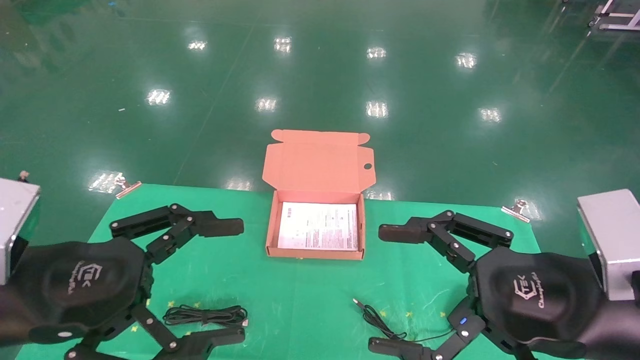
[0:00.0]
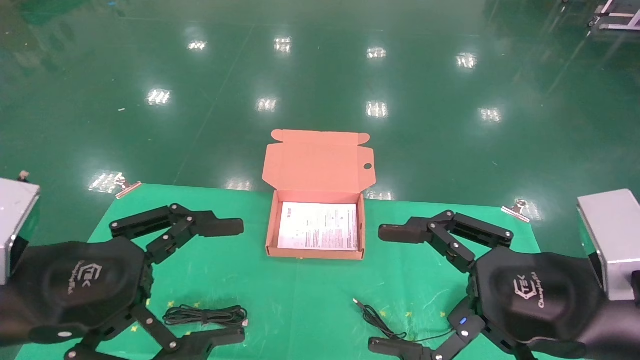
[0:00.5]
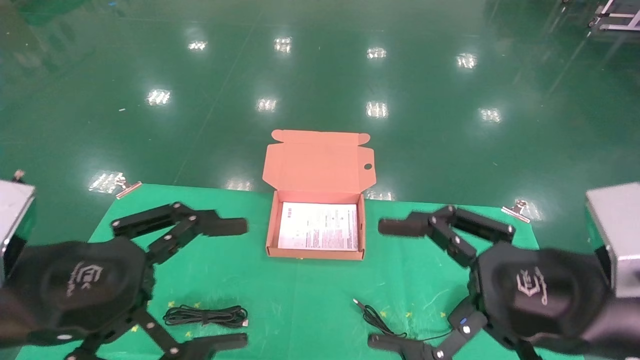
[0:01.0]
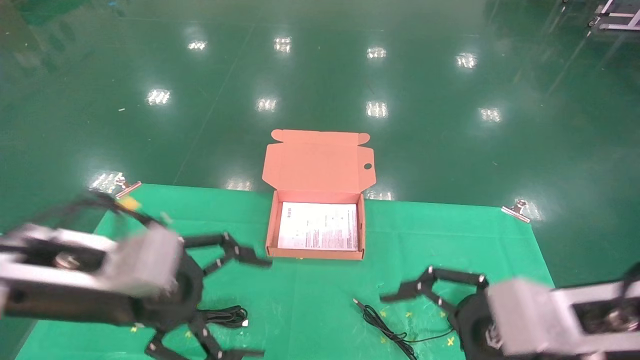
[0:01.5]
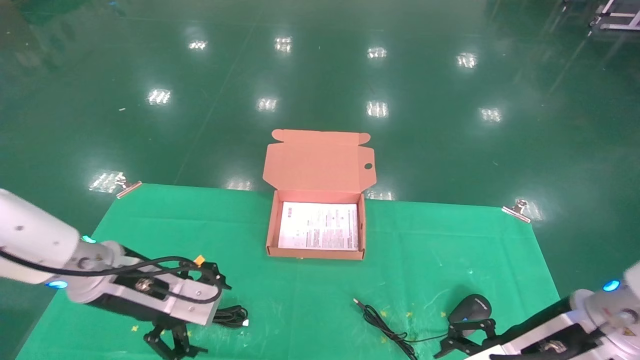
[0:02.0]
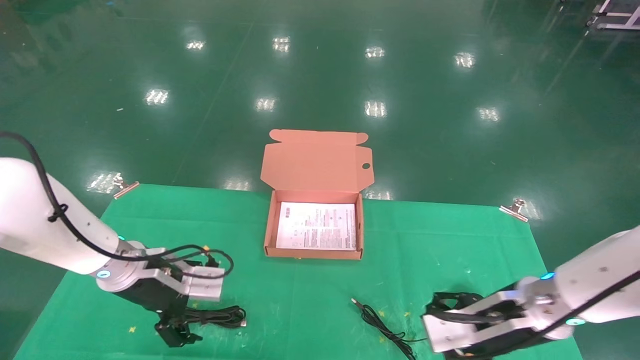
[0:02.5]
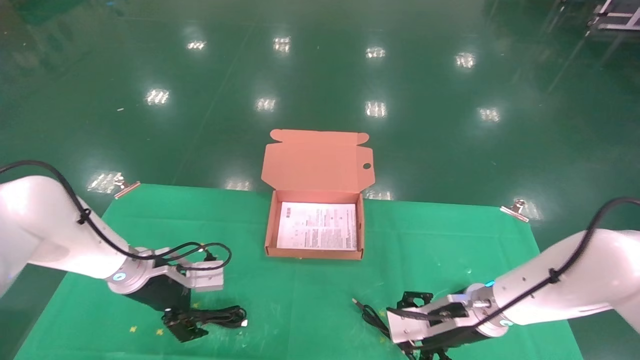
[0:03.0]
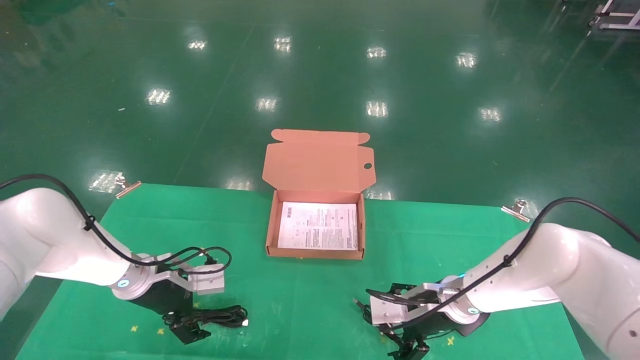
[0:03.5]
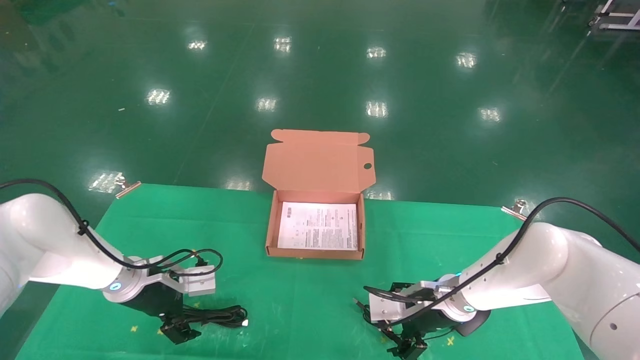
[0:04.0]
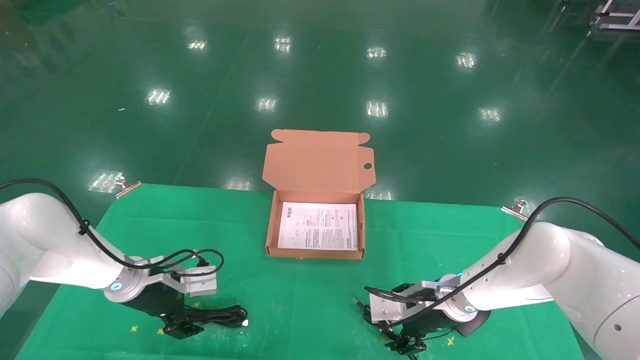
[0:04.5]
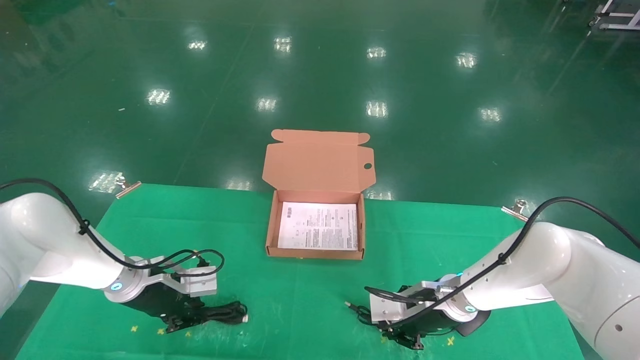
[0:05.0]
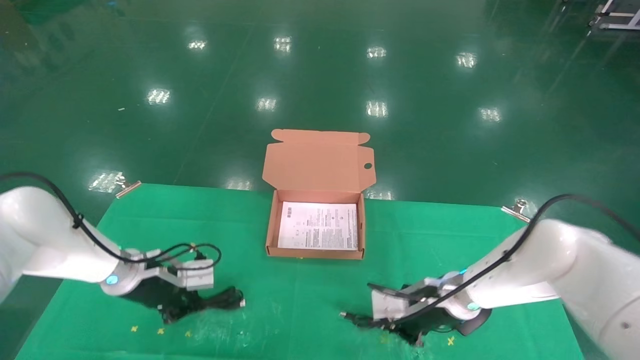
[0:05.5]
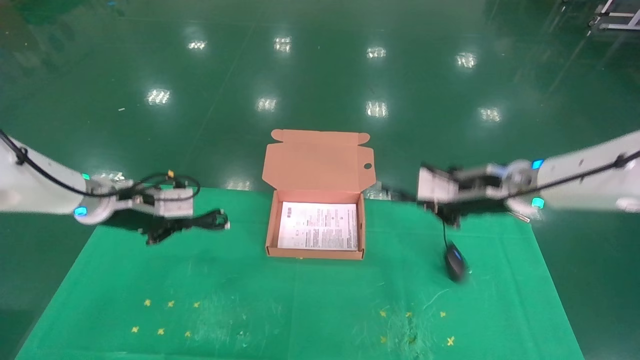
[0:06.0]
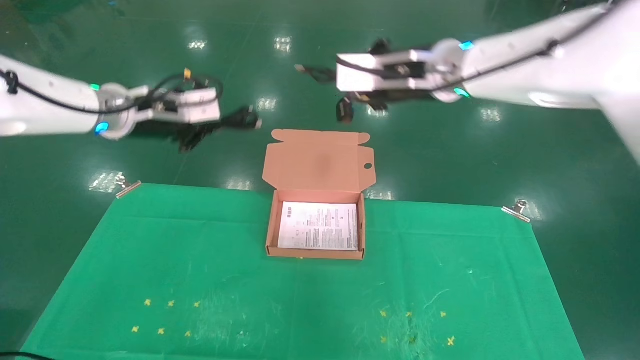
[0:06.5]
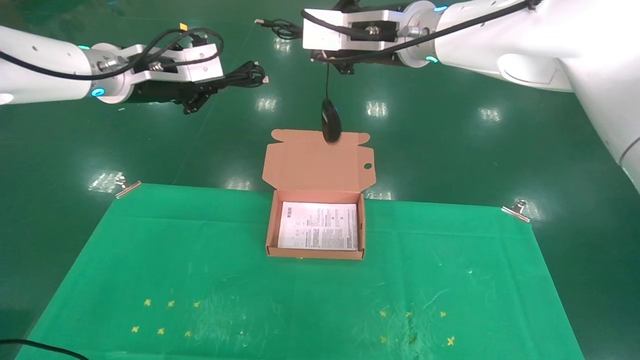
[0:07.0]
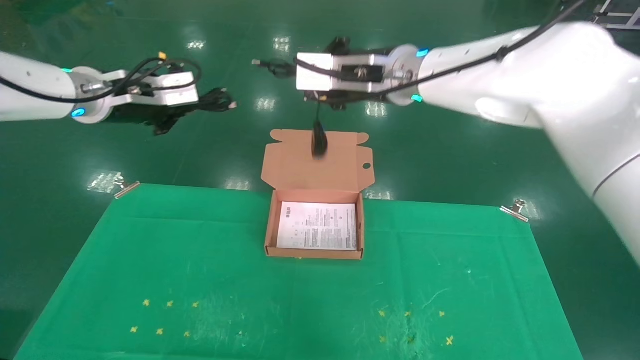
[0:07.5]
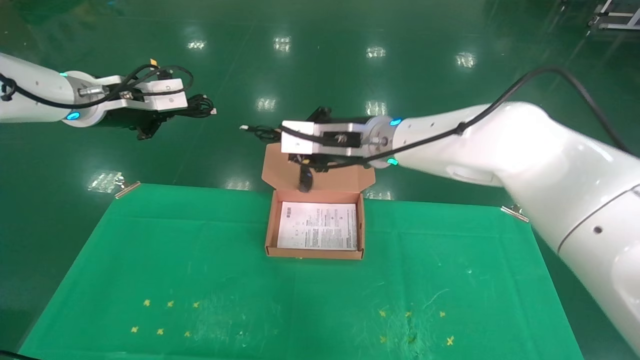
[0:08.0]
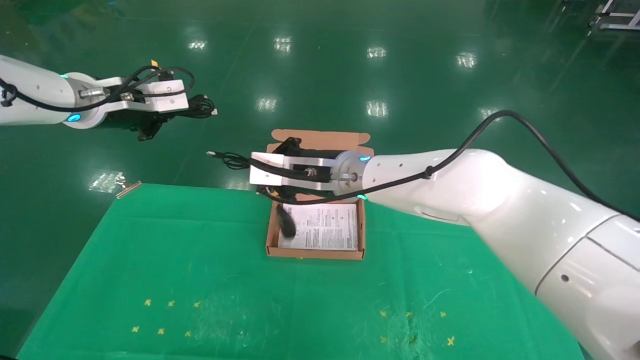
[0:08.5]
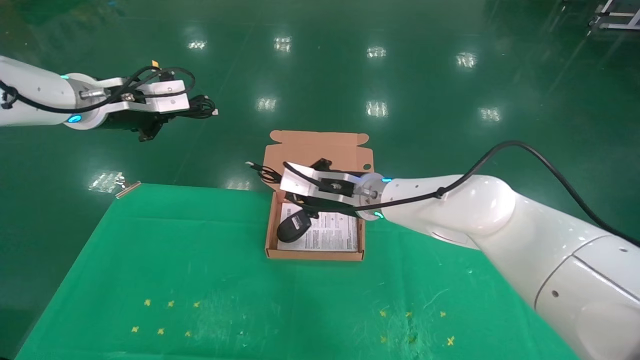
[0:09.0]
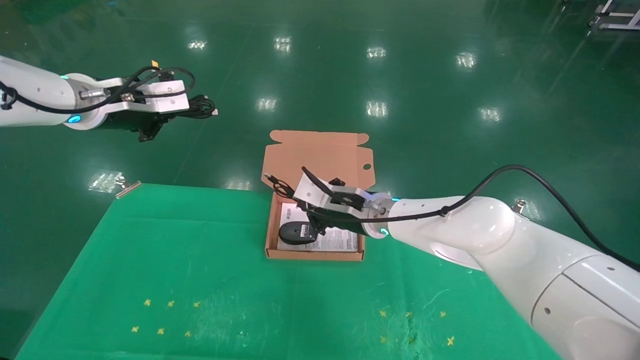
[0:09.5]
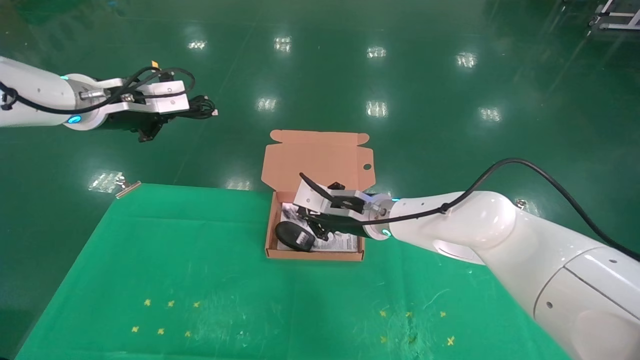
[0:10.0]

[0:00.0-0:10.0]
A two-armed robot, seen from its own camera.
Task of the whole recording: grasp data cable left put into box grasp mouse right put into box.
Step, 0:01.5 to 0:06.5: Grab and pick up both the mouse and power cord from the accessory packaging area at the same time.
0:00.0 to 0:02.0: The two grippers go roughly 10 cm forward and downward.
0:02.0 to 0:04.0: The right gripper heads forward and downward, covering about 20 cm, while the left gripper heads forward, downward and to the left, covering some 15 cm.
0:04.0 to 0:06.0: Both grippers travel together upward, approximately 15 cm. The left gripper closes its fingers. The right gripper closes up.
0:06.0 to 0:08.0: The left gripper goes some 15 cm upward. Meanwhile the right gripper is displaced to the left by approximately 20 cm.
0:08.0 to 0:10.0: The right gripper goes about 10 cm downward.

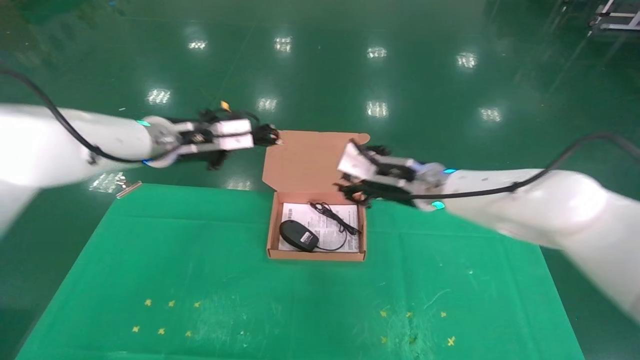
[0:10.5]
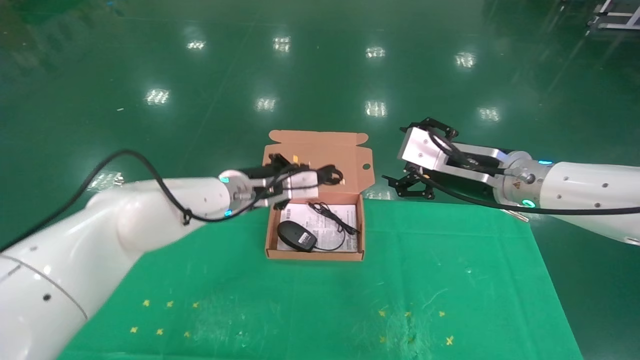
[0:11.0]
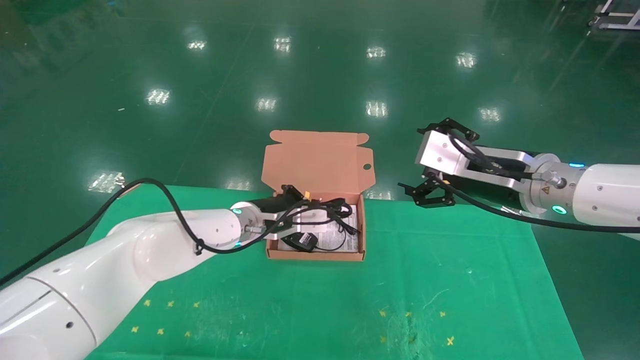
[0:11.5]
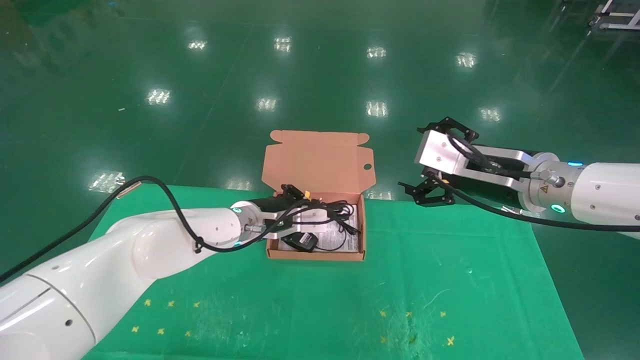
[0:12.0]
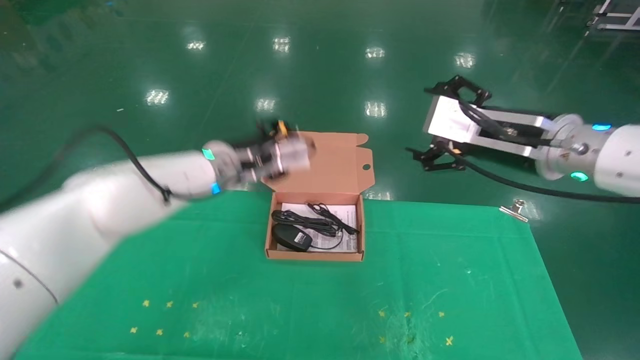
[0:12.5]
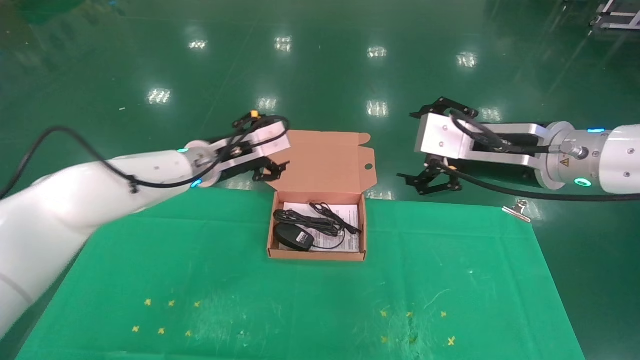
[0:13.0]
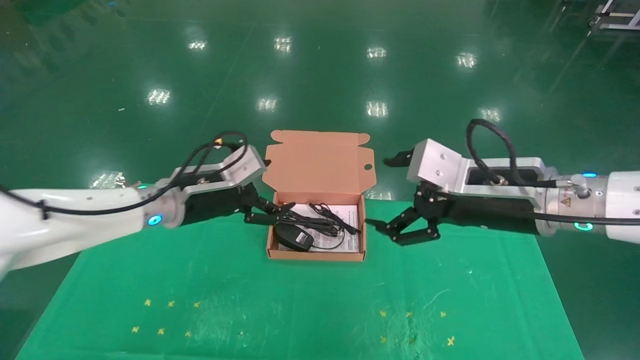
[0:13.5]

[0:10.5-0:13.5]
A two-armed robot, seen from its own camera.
Task of the whole recording: grasp data cable left put into box grasp mouse right put into box.
0:10.5 to 0:12.0: The left gripper moves downward and to the right, roughly 15 cm, while the right gripper travels backward and to the right by some 10 cm, and opens.
0:12.0 to 0:13.5: The left gripper shifts about 15 cm to the left, backward and upward, and opens its fingers, while the right gripper is displaced backward by some 5 cm.
